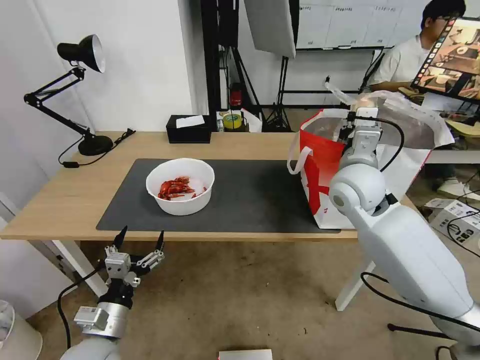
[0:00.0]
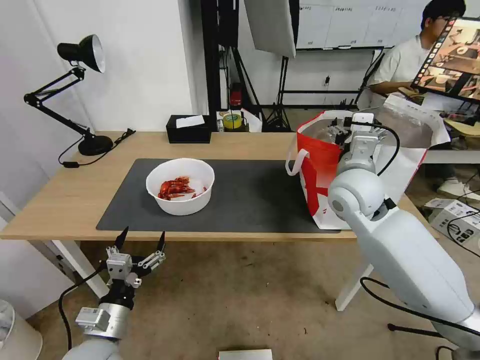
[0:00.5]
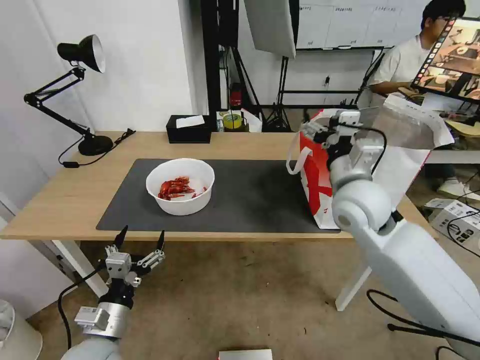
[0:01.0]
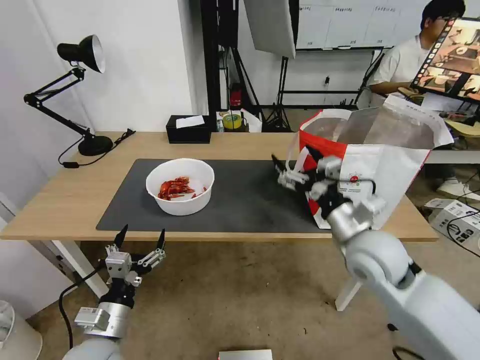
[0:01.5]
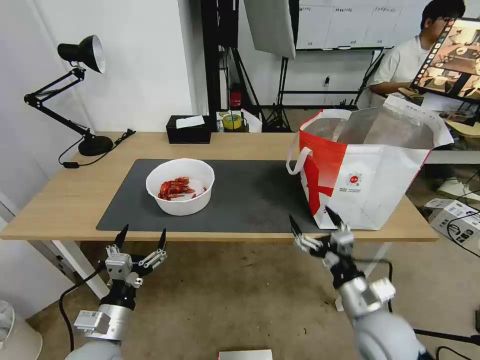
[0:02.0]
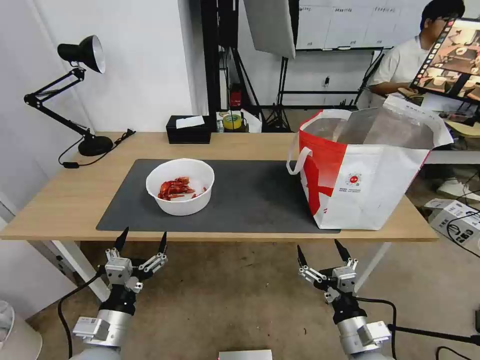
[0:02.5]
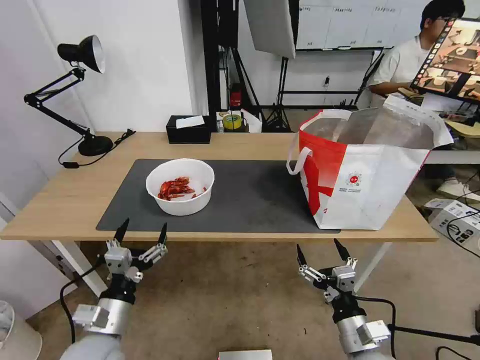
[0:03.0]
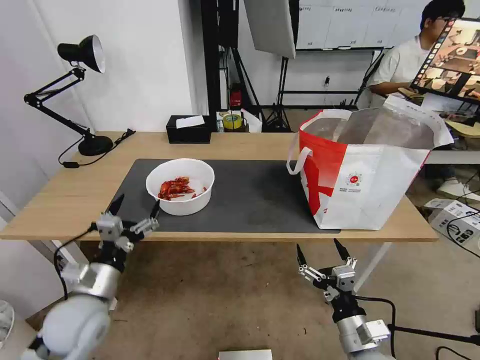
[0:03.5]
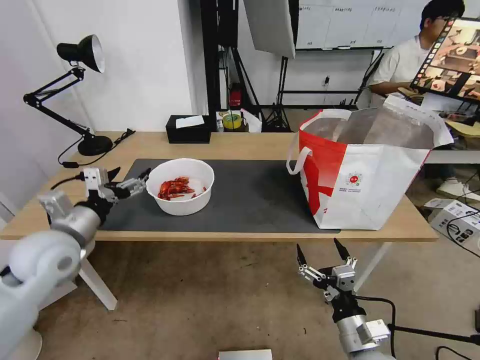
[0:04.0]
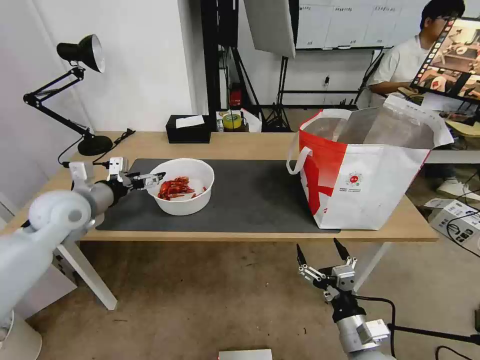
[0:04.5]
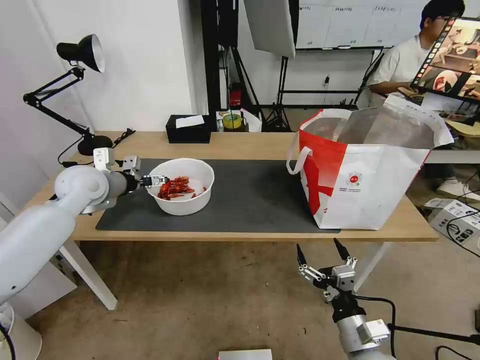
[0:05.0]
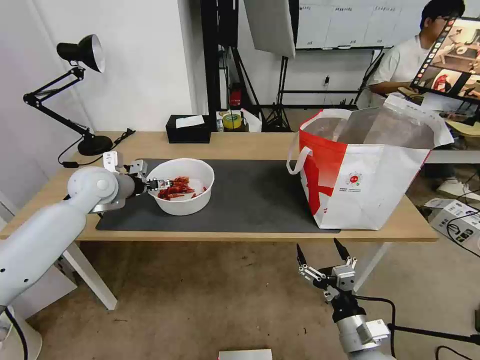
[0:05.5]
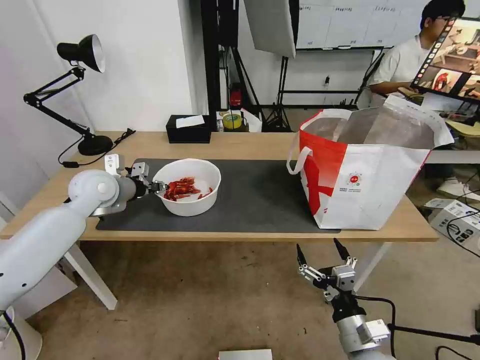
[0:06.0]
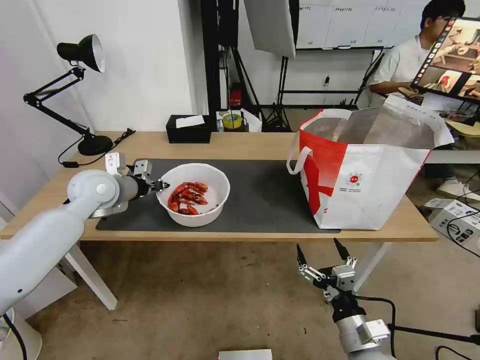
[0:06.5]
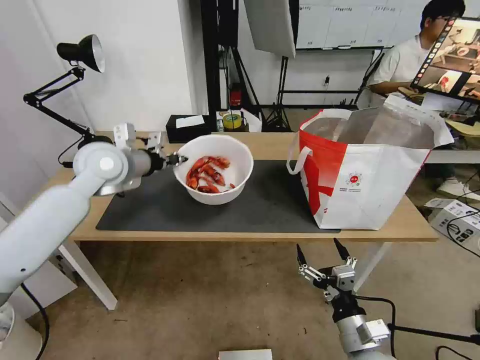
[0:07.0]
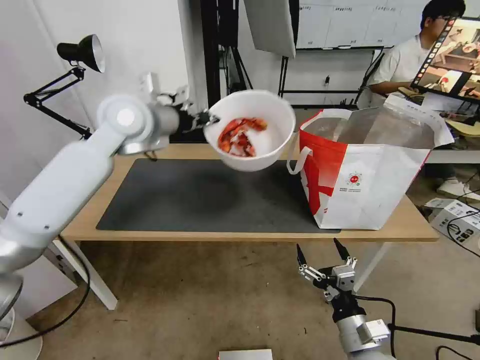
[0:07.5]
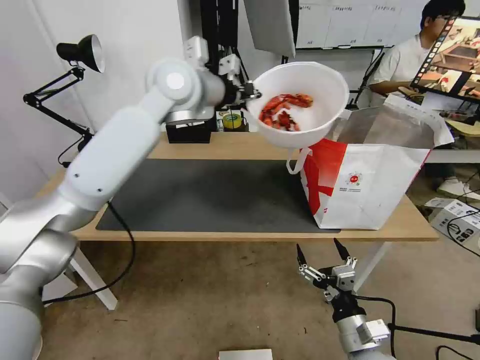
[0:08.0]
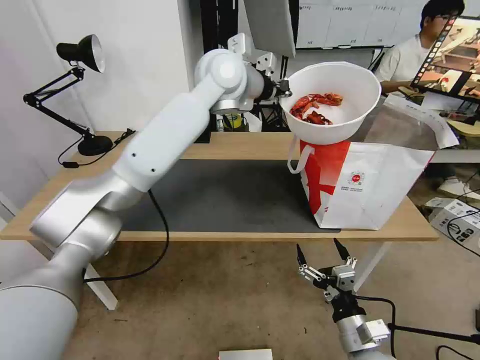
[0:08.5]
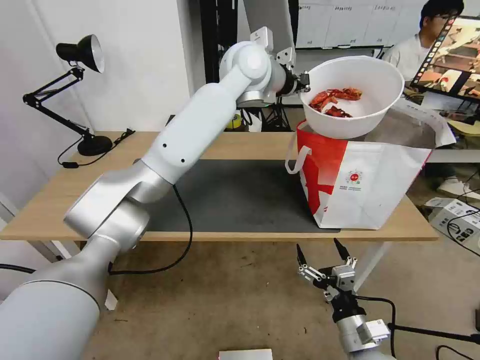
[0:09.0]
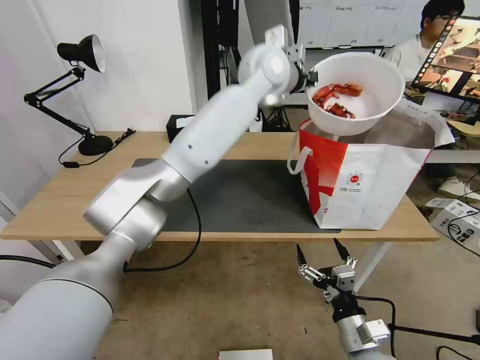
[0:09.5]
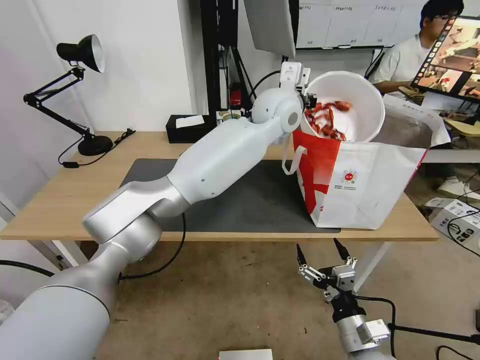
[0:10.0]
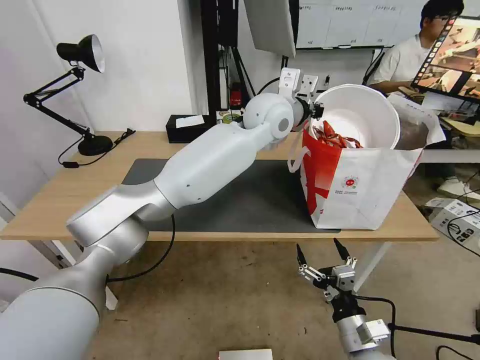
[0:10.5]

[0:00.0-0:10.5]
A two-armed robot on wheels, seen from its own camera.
Task of the whole recording: Pick up the trash from the table and place it into the takeout bag.
0:00.0 to 0:02.0: The right gripper is displaced backward and downward by approximately 25 cm, and opens up.
0:02.0 to 0:04.0: The right gripper shifts about 10 cm backward and downward; the left gripper moves forward, upward and to the left, approximately 25 cm.
0:04.0 to 0:06.5: The left gripper moves forward, roughly 15 cm, and closes.
0:06.5 to 0:08.5: The left gripper shifts about 35 cm to the right and upward.
0:08.5 to 0:10.5: The left gripper moves to the right and downward, about 10 cm.

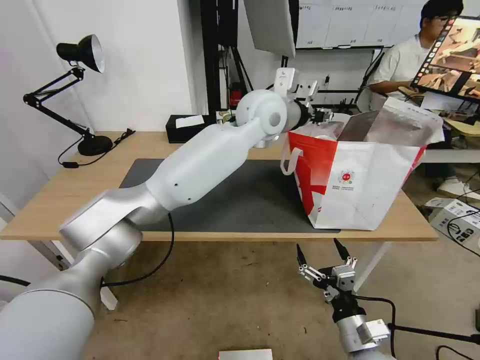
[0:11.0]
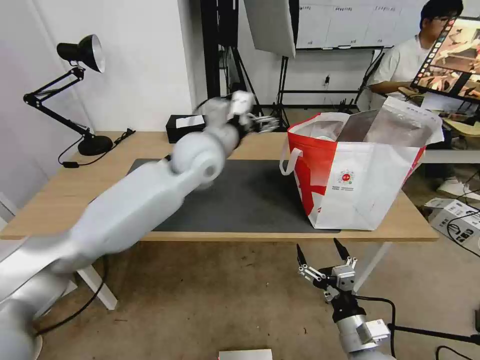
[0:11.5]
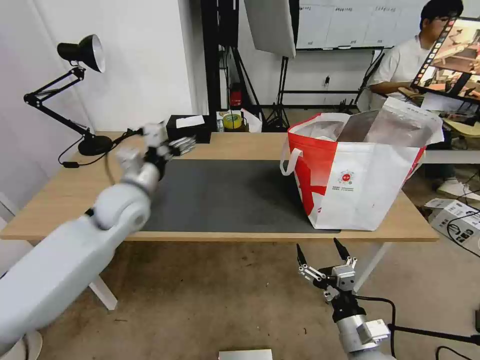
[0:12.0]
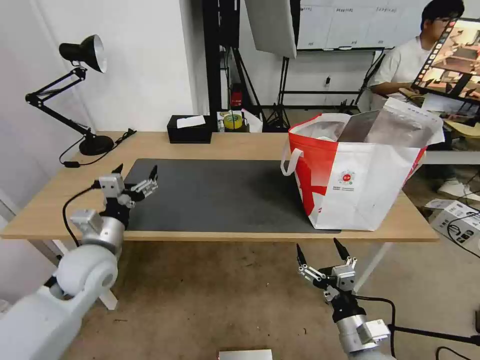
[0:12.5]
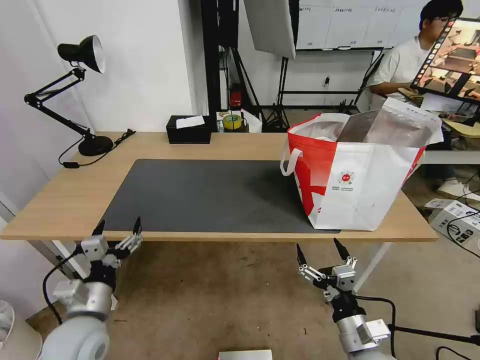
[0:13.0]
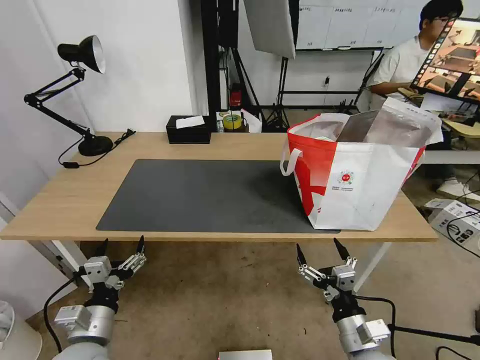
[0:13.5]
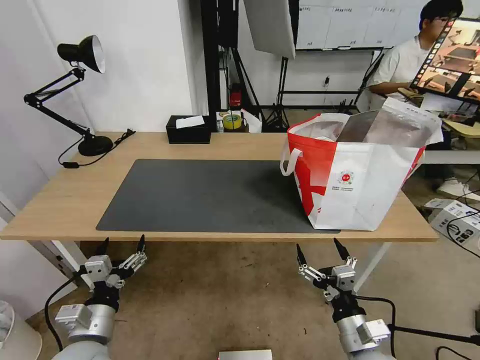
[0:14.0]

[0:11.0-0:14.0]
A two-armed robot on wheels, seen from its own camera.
Task of the whole recording: Pick up the trash from the table and place it into the takeout bag.
0:11.0 to 0:12.5: The left gripper shifts some 40 cm to the left, downward and backward, and opens up.
0:12.5 to 0:14.0: The left gripper shifts about 15 cm backward and downward.

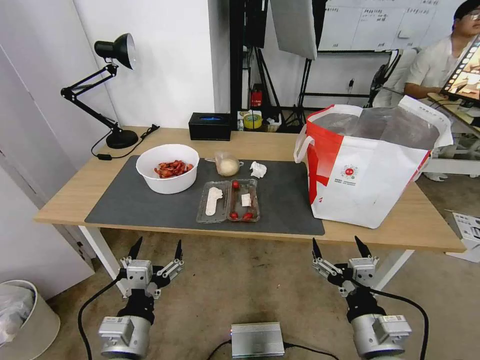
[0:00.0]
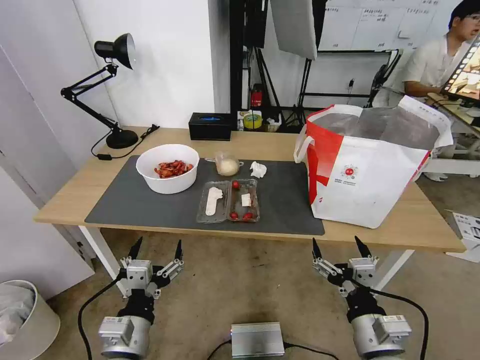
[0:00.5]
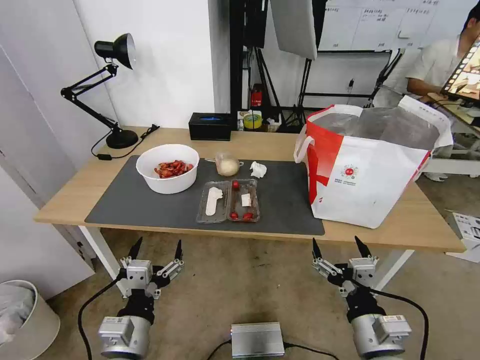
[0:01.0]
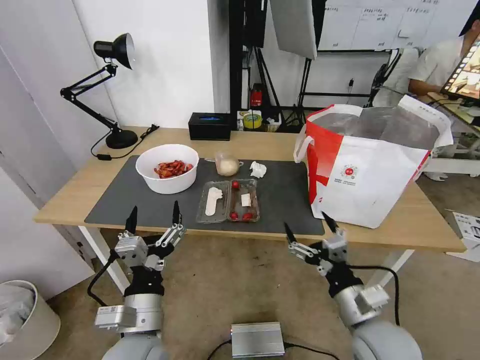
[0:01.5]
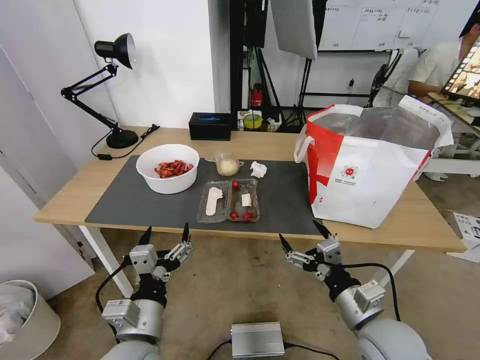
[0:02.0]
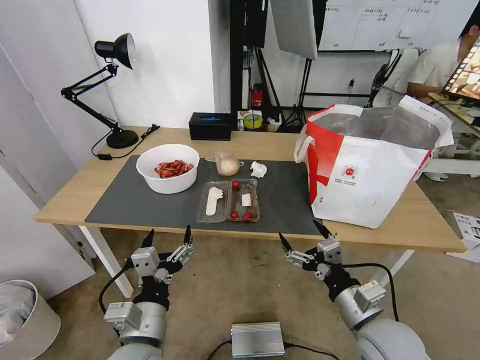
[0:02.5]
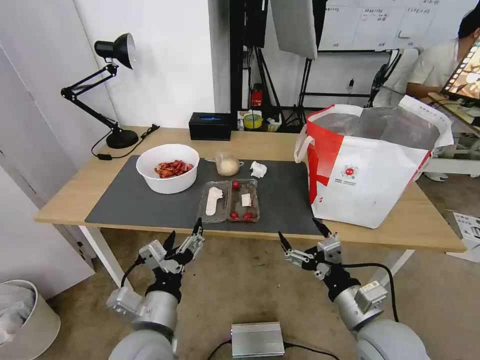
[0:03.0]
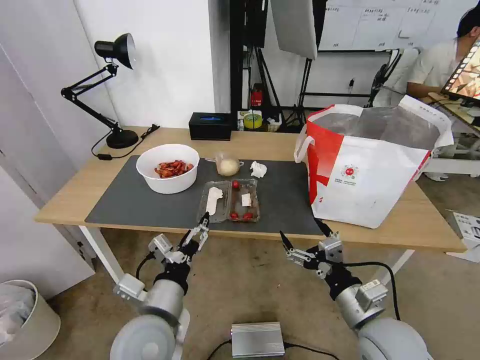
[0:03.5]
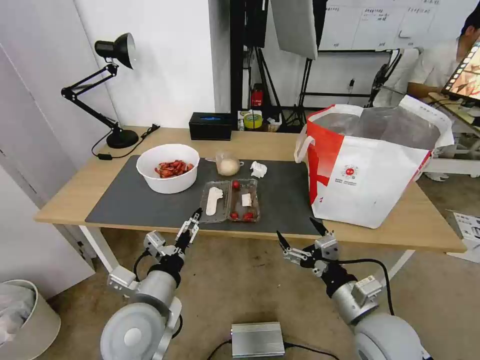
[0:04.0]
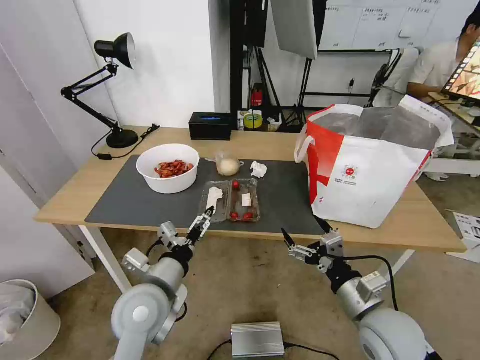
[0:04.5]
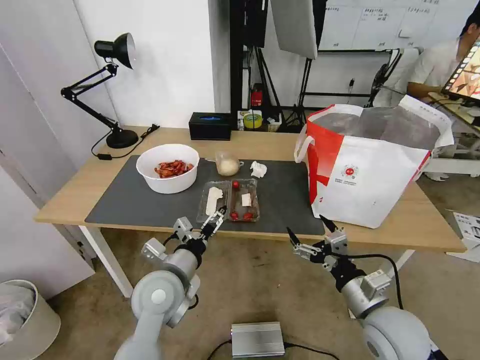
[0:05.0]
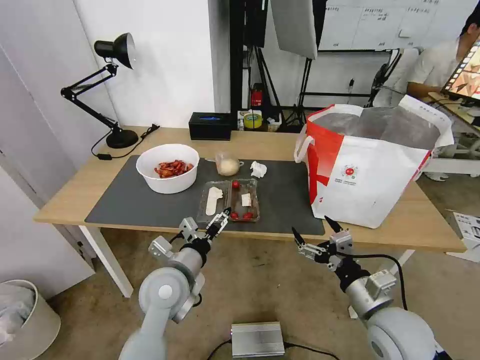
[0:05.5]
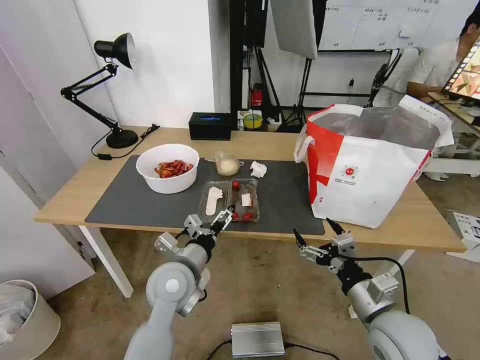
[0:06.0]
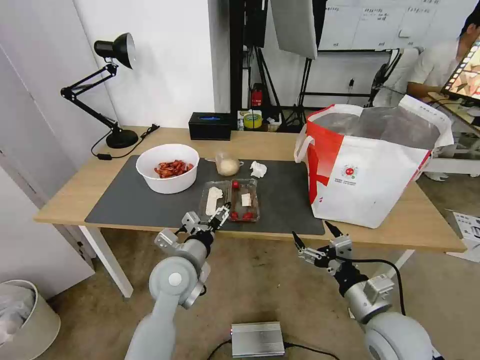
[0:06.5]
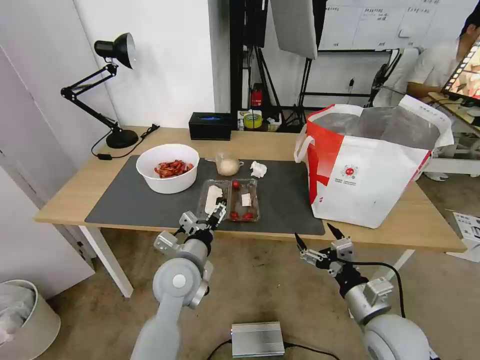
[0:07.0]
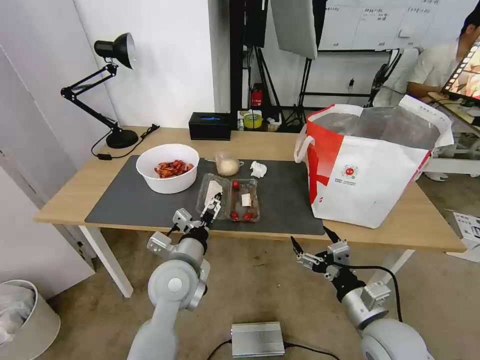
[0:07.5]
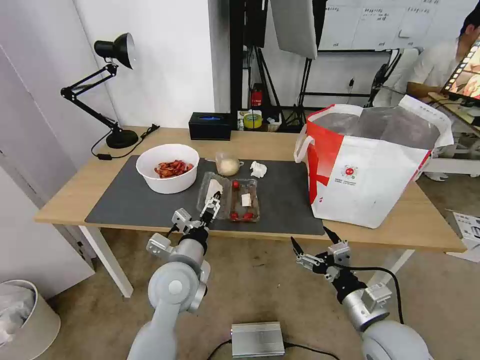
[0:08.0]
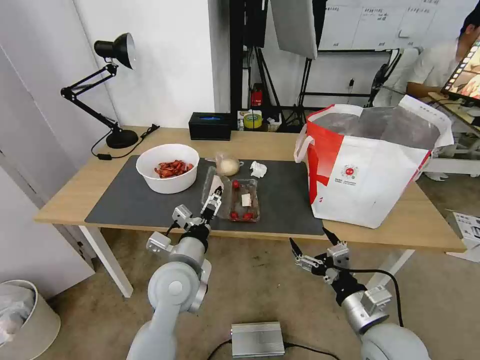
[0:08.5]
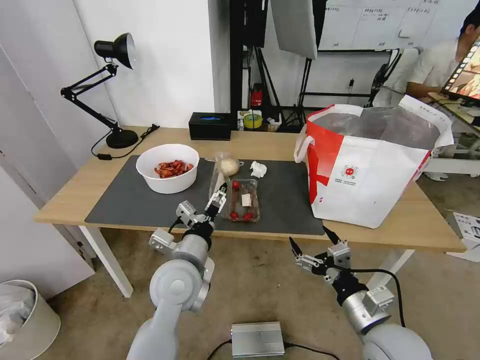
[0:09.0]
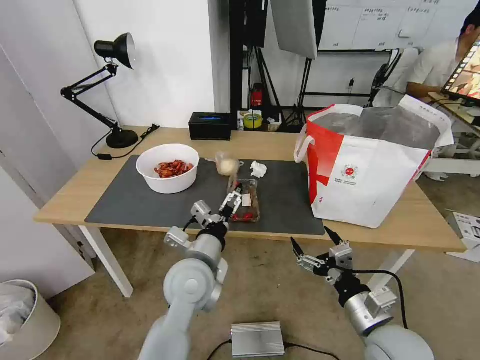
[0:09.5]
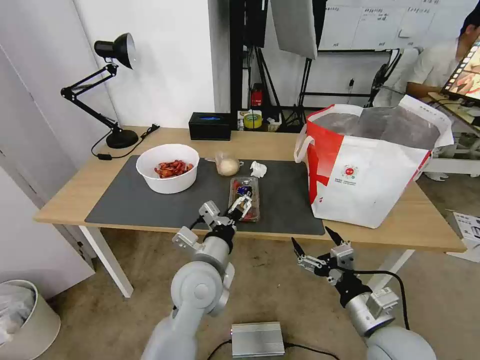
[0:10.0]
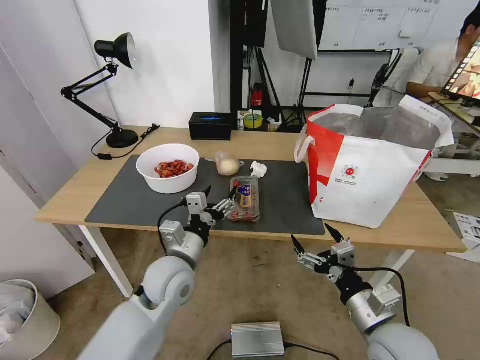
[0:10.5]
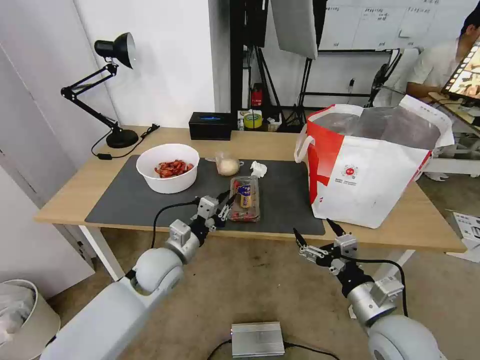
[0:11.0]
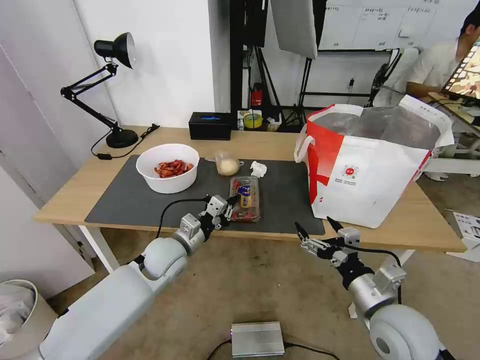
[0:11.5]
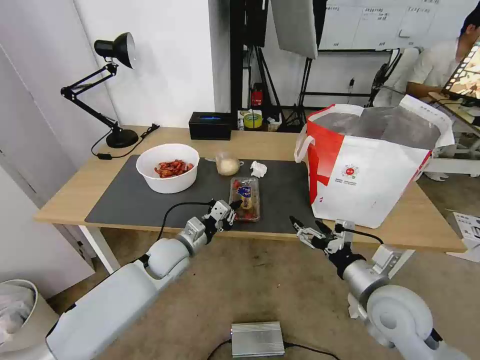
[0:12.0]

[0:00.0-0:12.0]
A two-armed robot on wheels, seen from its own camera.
Task of the whole recording: Pick up the trash from the table and place it into the takeout bag.
0:02.0 to 0:04.0: The left gripper heads forward, covering approximately 5 cm.
0:04.0 to 0:06.0: The left gripper heads forward, covering approximately 10 cm.
0:06.0 to 0:08.0: The grippers move only a little.
0:08.0 to 0:10.0: The grippers make only small movements.
0:10.0 to 0:12.0: The right gripper heads forward, covering roughly 5 cm. Meanwhile the left gripper travels forward, to the left and downward by some 15 cm, and closes.
